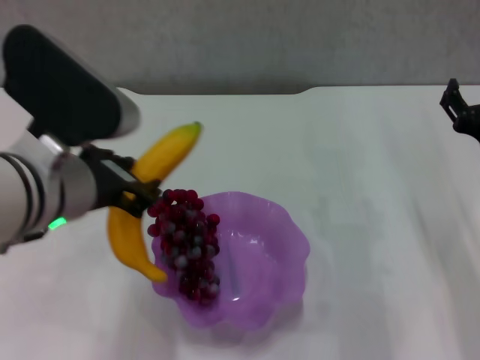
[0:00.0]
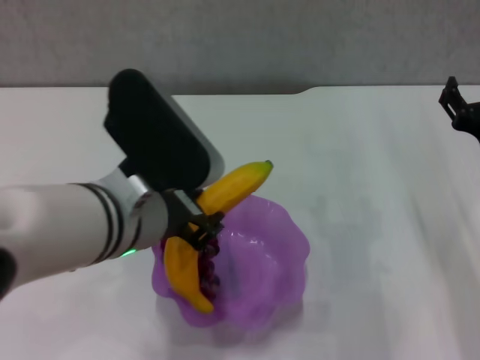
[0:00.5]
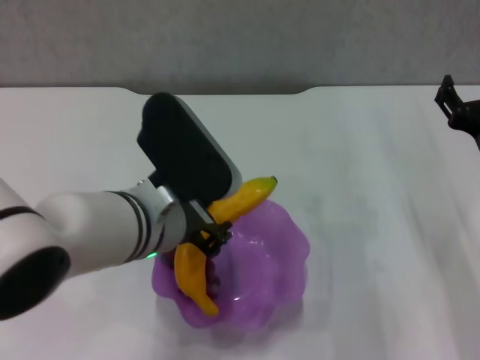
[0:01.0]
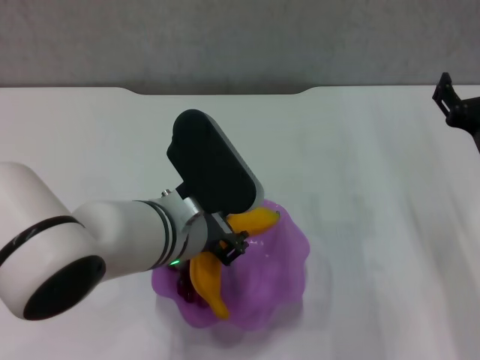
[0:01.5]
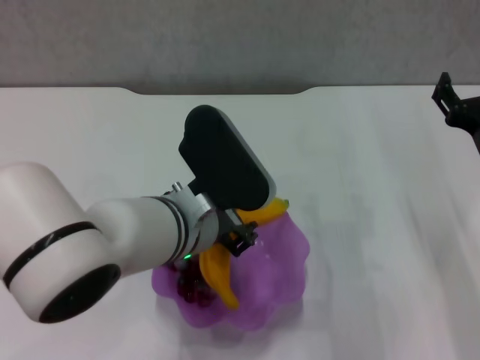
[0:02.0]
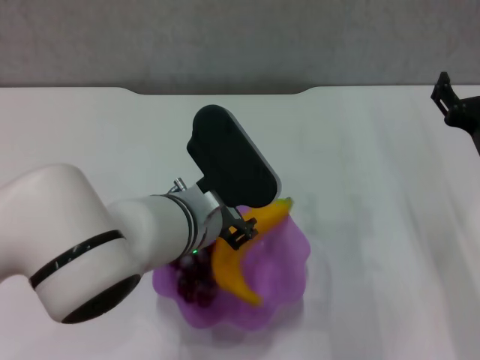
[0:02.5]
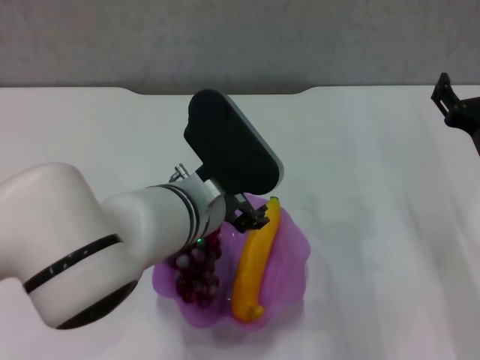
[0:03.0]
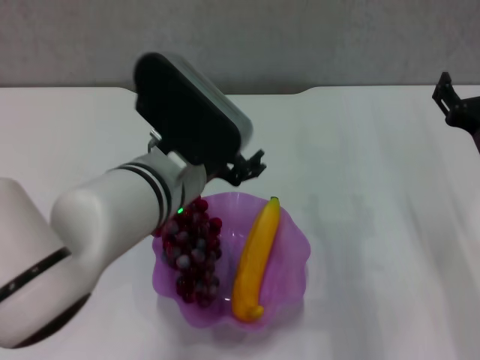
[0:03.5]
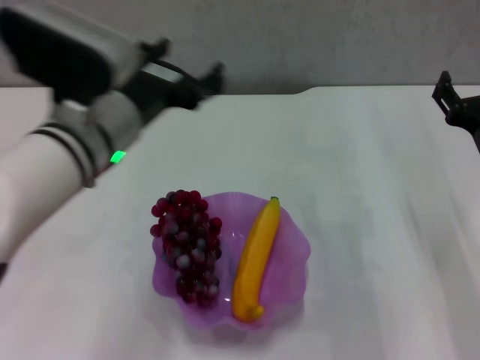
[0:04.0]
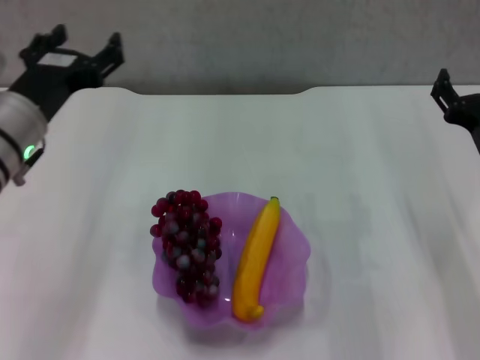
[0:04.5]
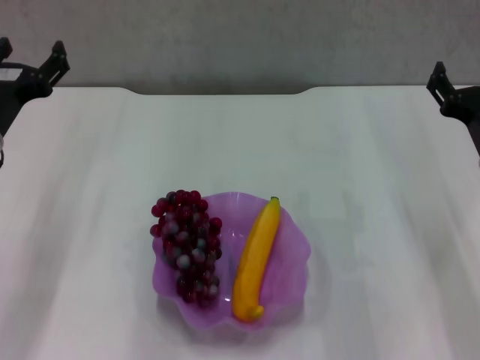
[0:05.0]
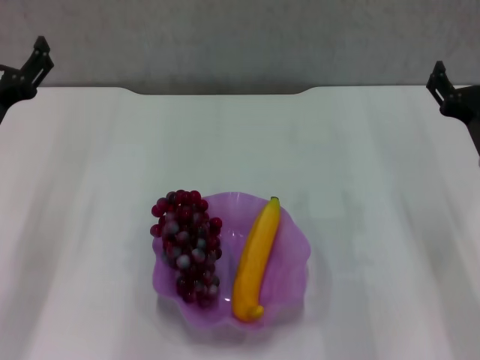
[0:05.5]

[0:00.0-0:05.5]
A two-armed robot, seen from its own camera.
Step, 0:00.0 to 0:02.5: Place the banana in the purple plate with left gripper.
0:00.0 to 0:02.0: The left gripper heads to the right and downward, covering about 10 cm.
0:02.0 to 0:03.5: The left gripper opens.
0:03.5 to 0:05.5: The left gripper heads to the left, covering roughly 20 cm.

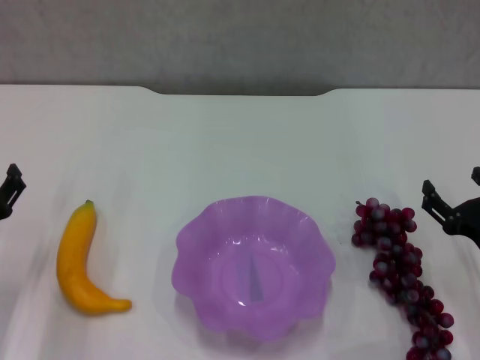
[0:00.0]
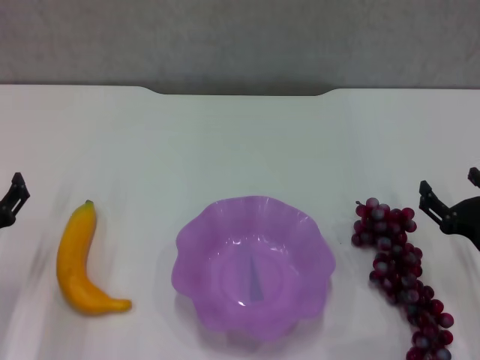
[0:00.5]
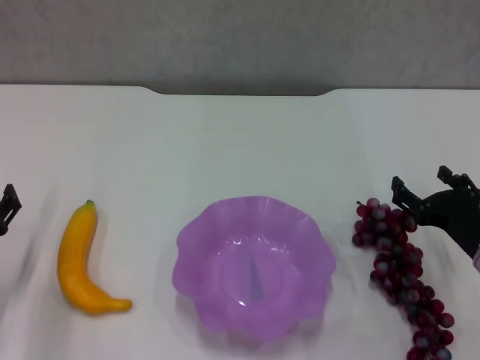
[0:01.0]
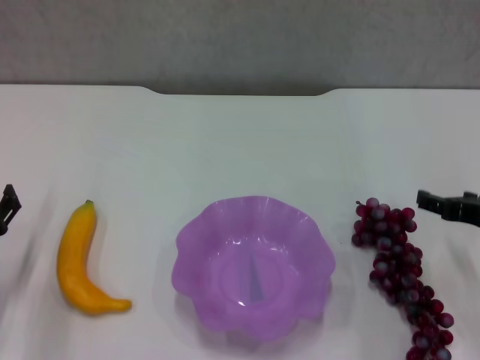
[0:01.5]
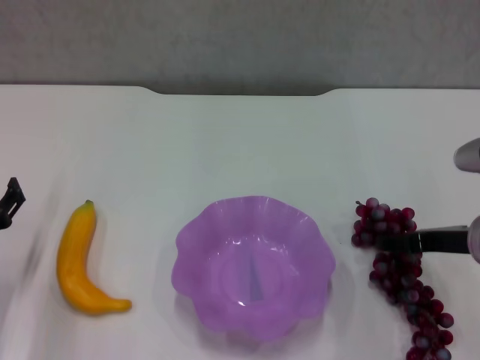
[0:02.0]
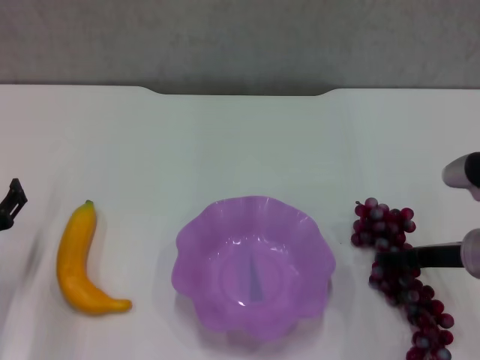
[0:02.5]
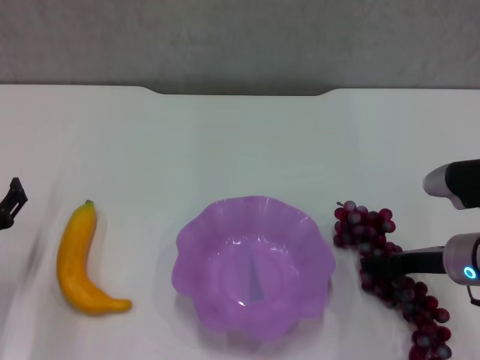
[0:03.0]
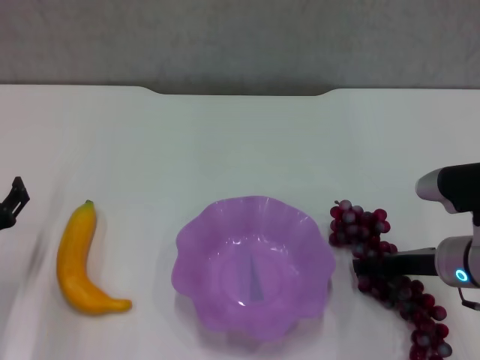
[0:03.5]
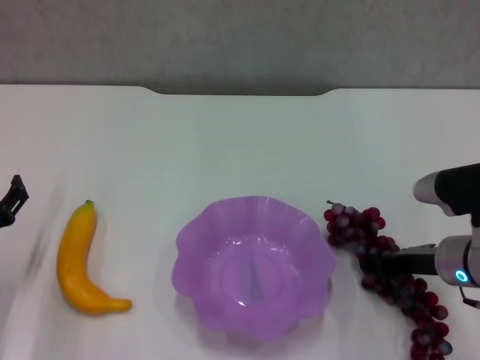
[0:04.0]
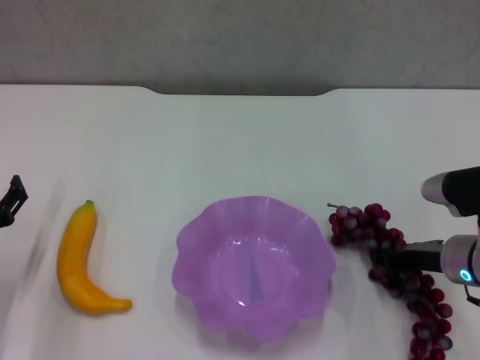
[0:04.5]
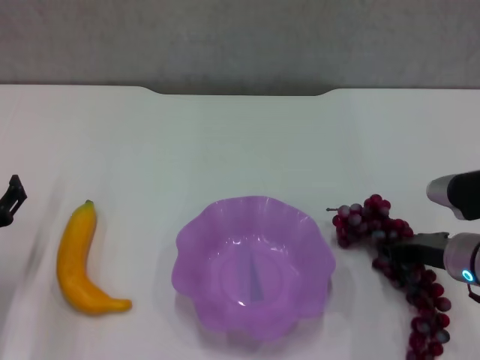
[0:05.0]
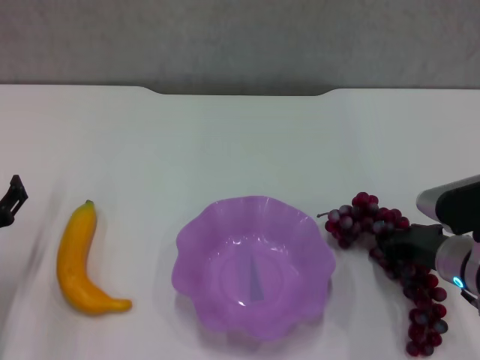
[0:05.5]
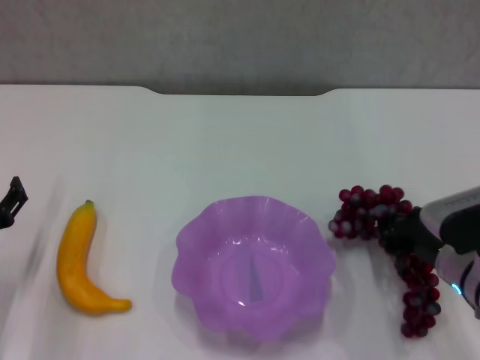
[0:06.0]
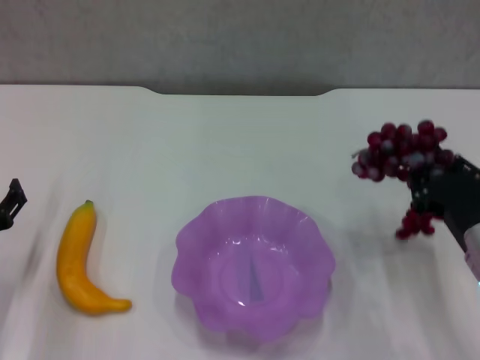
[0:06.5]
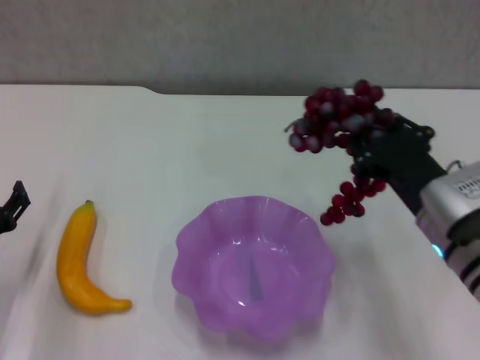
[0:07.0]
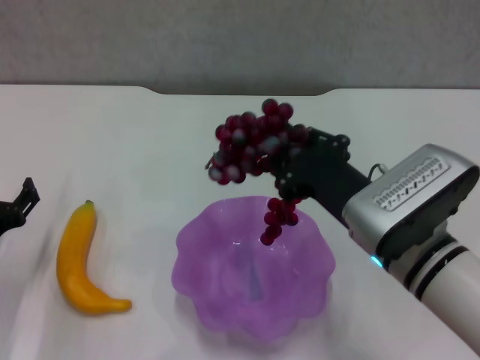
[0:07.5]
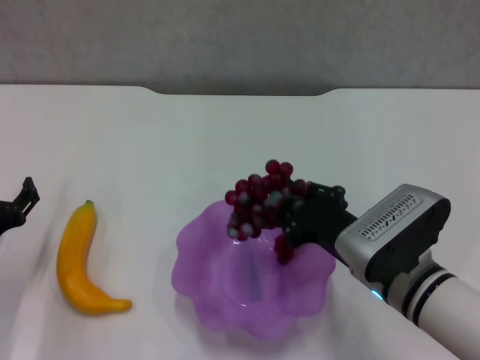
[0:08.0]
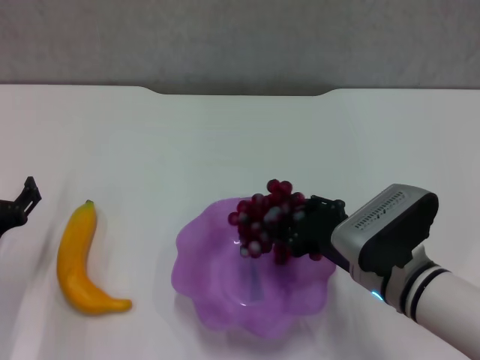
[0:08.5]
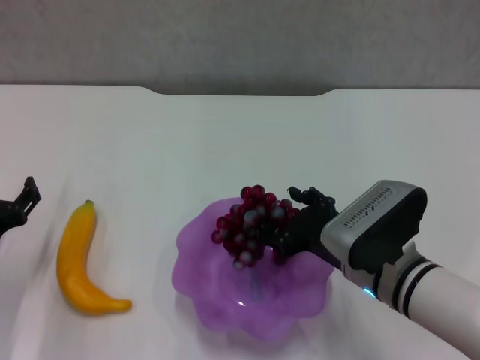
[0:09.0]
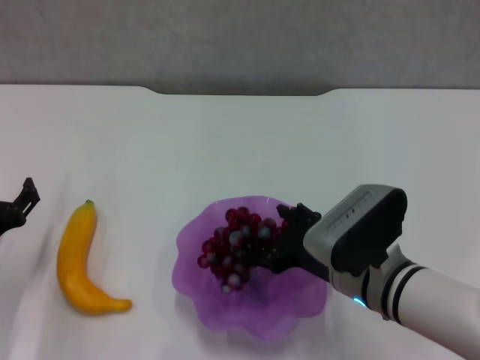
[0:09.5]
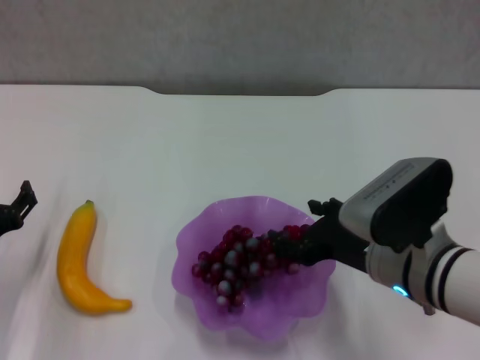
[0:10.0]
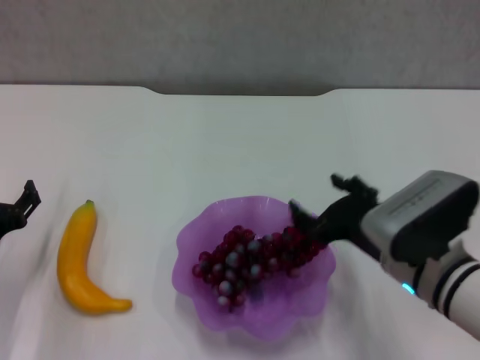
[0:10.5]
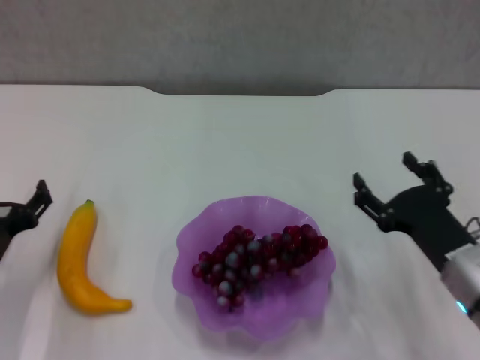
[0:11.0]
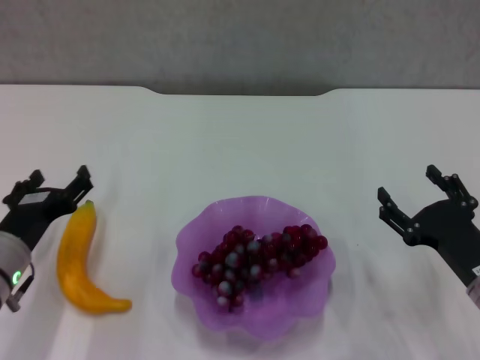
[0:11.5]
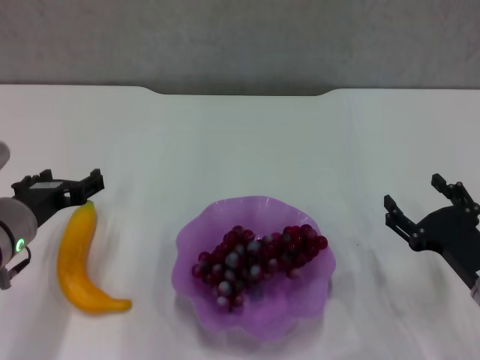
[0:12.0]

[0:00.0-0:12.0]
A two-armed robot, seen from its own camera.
Step, 0:00.0 to 0:04.0: Grasp the grape with right gripper.
Step, 0:04.5 to 0:10.5: Place the grape in the purple plate with right gripper.
0:00.0 to 0:02.0: The right gripper goes approximately 10 cm upward.
0:02.0 to 0:04.0: The right gripper closes its fingers.
0:04.0 to 0:06.0: The right gripper closes up.
0:06.0 to 0:08.0: The right gripper shifts approximately 10 cm to the left.
0:08.0 to 0:10.0: The right gripper opens its fingers.
0:10.0 to 0:12.0: The right gripper shifts some 15 cm to the right and downward; the left gripper shifts some 10 cm upward and to the right.

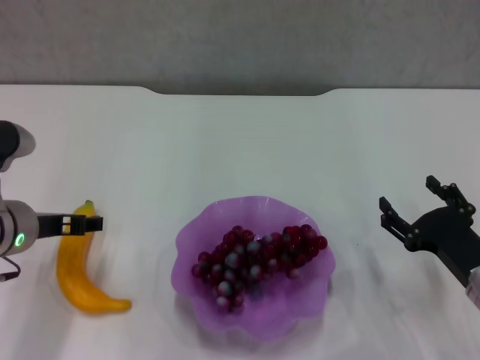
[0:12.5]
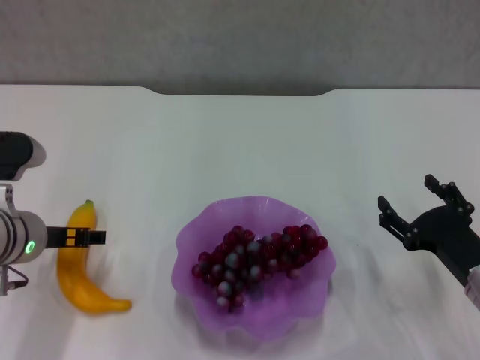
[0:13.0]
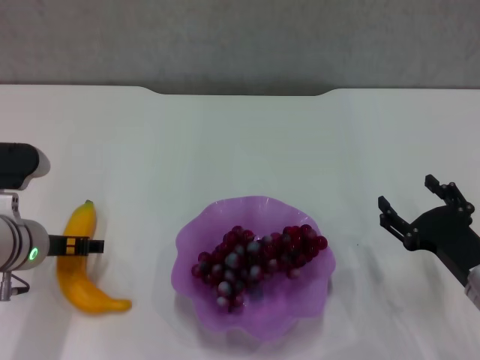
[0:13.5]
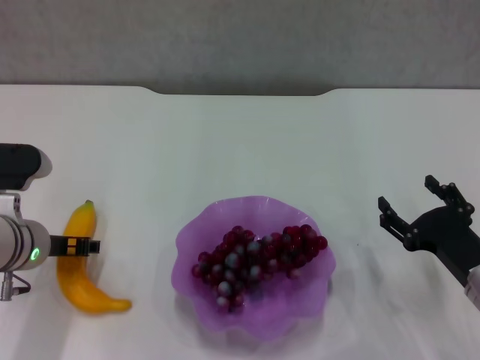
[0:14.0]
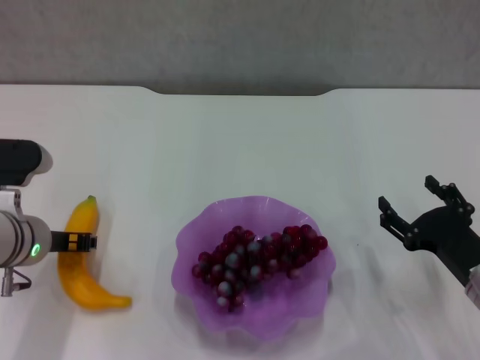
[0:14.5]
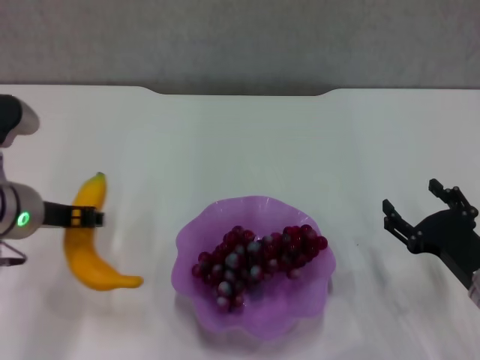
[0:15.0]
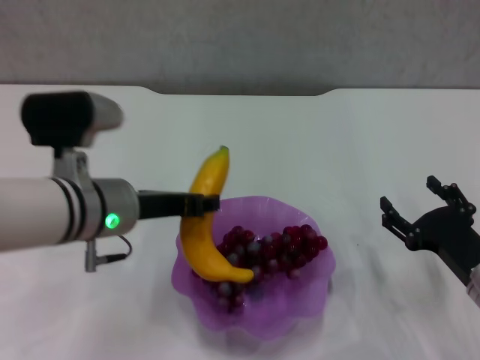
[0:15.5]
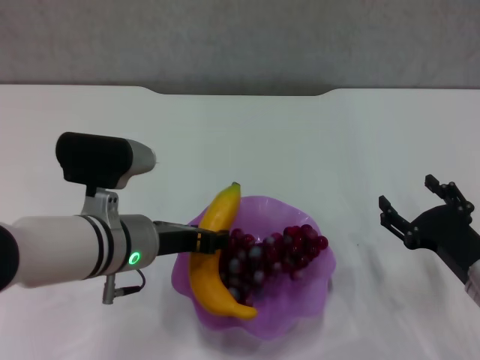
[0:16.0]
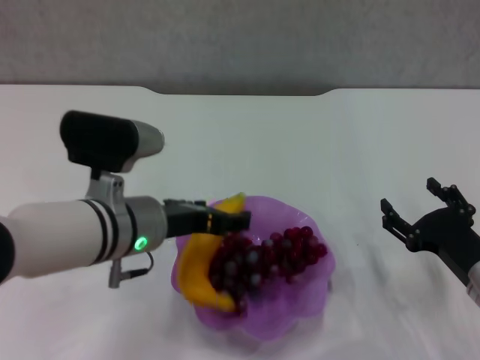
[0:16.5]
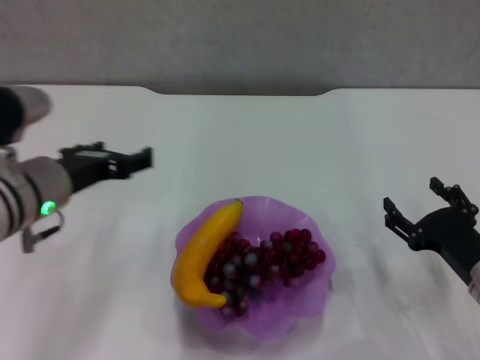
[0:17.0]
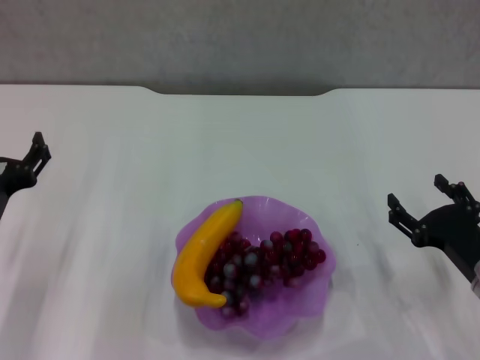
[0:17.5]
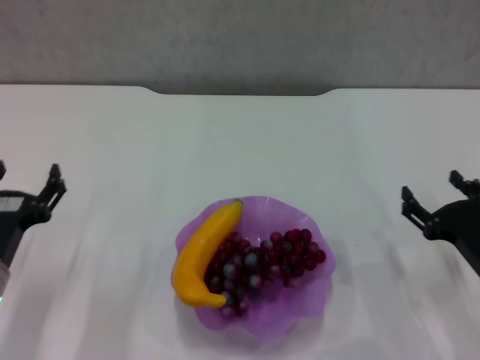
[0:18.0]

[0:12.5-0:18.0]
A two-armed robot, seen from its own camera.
Step, 0:14.5 to 0:16.5: Place the banana in the purple plate with left gripper.
0:12.5 to 0:14.5: The left gripper closes up.
0:14.5 to 0:16.0: The left gripper shifts some 10 cm to the right.
0:16.0 to 0:18.0: The left gripper is displaced to the left, downward and backward by approximately 15 cm, and opens its fingers.

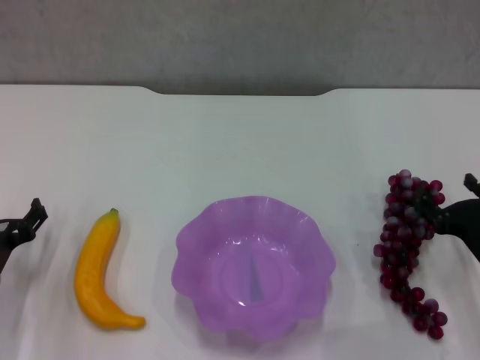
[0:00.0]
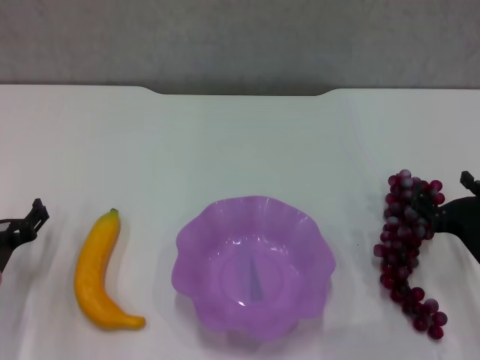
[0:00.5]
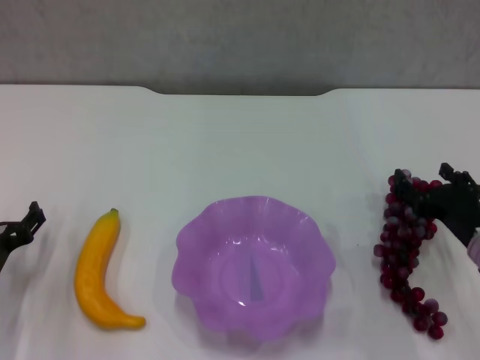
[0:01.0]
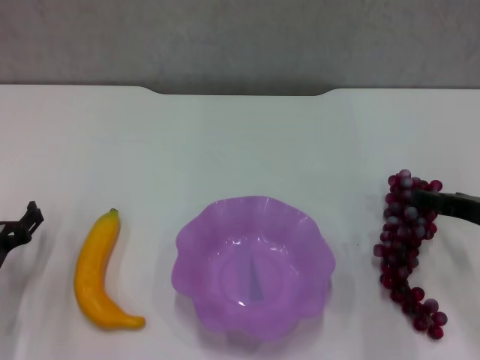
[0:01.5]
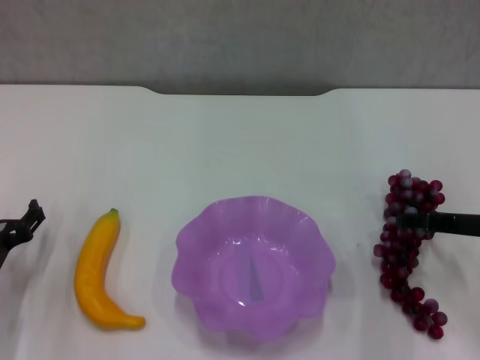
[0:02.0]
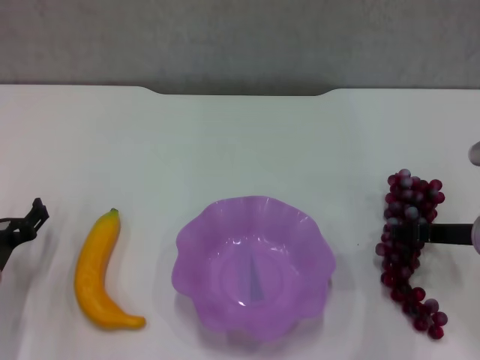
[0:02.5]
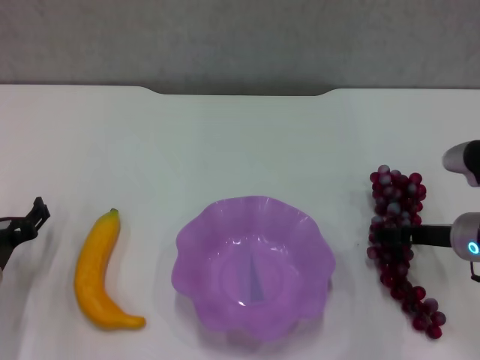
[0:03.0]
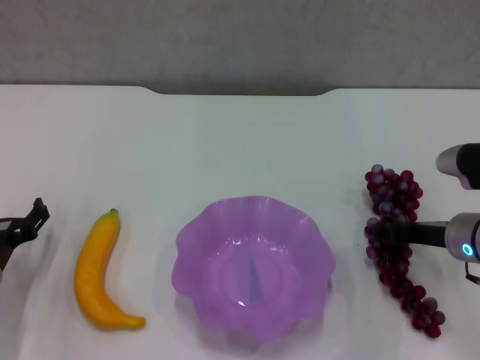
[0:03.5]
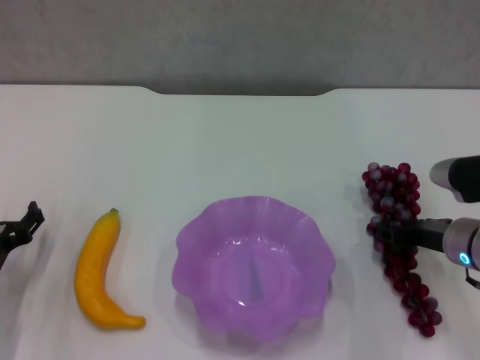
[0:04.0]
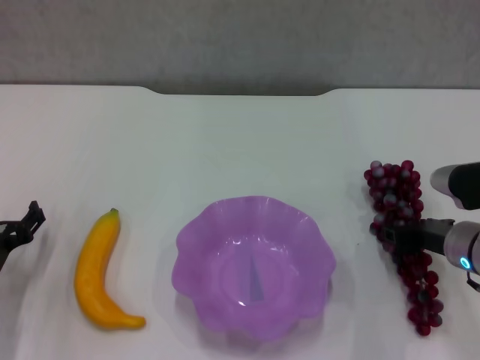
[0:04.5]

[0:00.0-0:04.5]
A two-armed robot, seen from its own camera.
Step, 0:00.0 to 0:04.0: Grasp the grape with right gripper.
0:00.0 to 0:02.0: The right gripper is displaced upward and forward by about 10 cm.
0:02.0 to 0:04.5: The right gripper shifts by approximately 5 cm, and closes.
